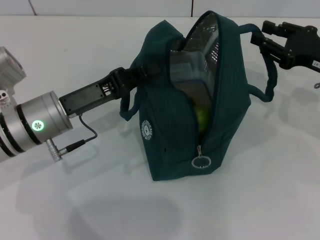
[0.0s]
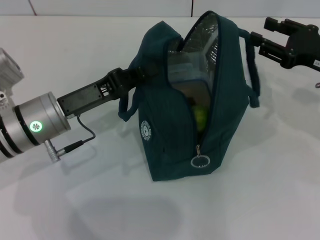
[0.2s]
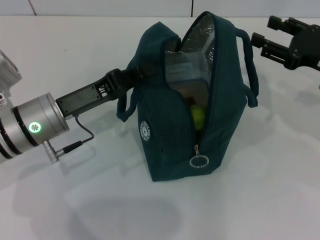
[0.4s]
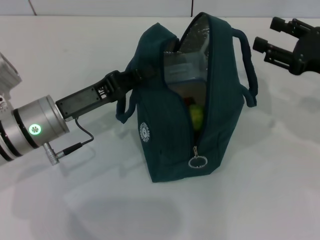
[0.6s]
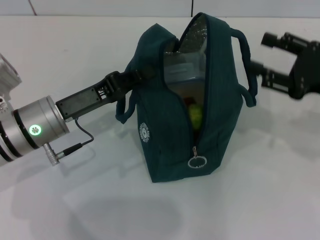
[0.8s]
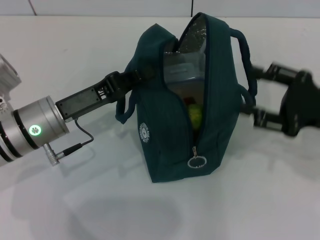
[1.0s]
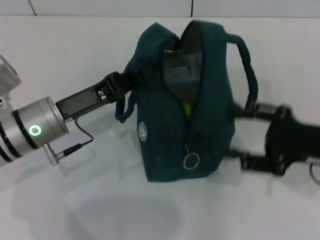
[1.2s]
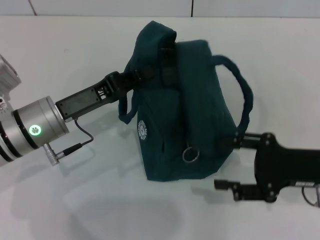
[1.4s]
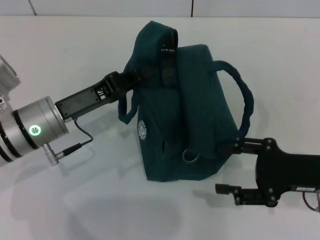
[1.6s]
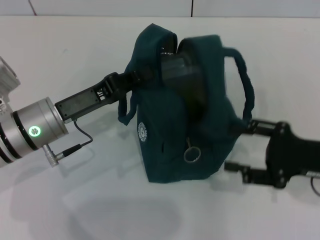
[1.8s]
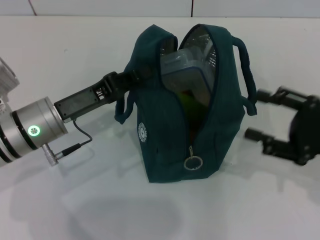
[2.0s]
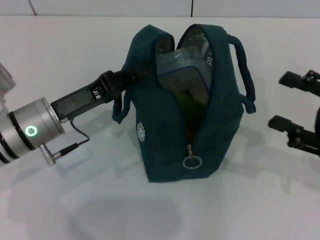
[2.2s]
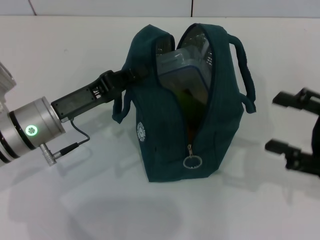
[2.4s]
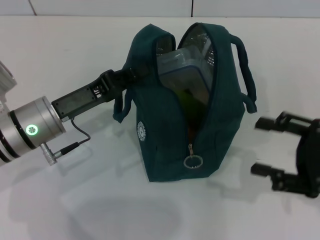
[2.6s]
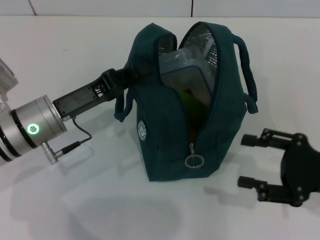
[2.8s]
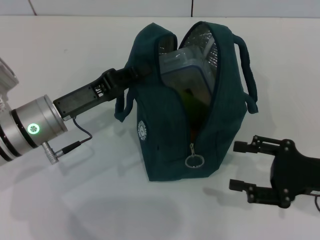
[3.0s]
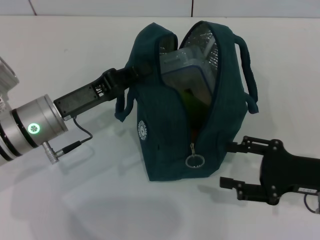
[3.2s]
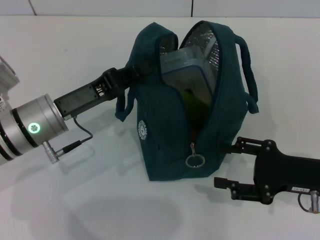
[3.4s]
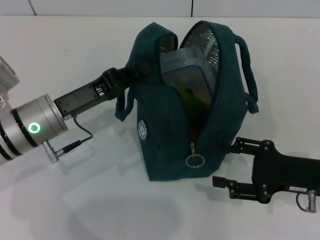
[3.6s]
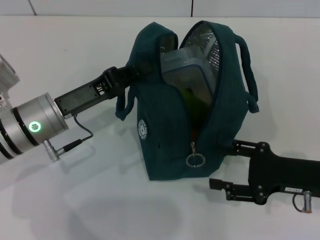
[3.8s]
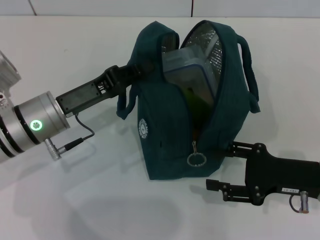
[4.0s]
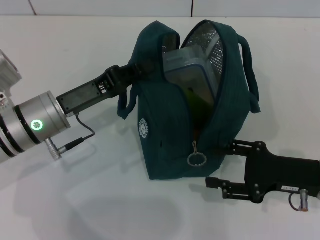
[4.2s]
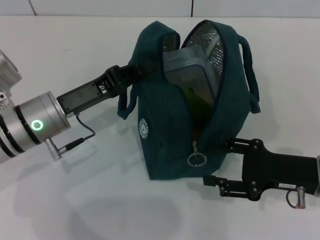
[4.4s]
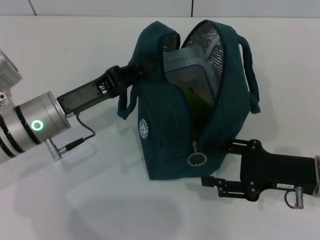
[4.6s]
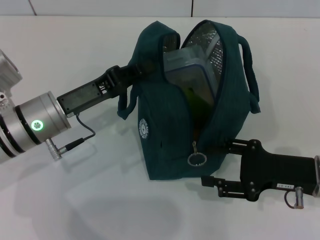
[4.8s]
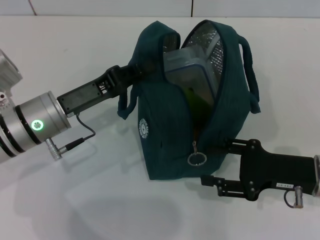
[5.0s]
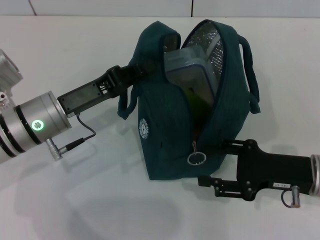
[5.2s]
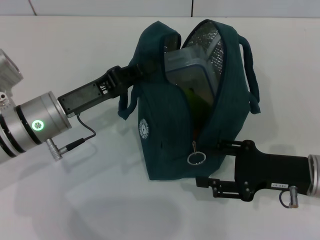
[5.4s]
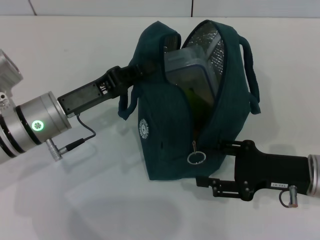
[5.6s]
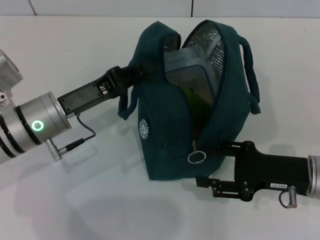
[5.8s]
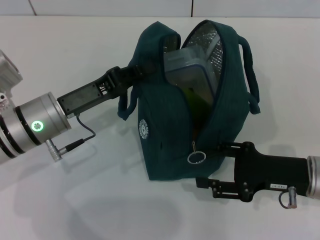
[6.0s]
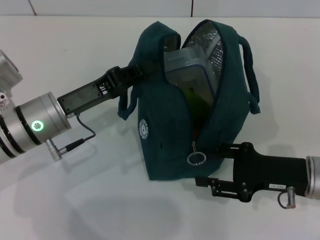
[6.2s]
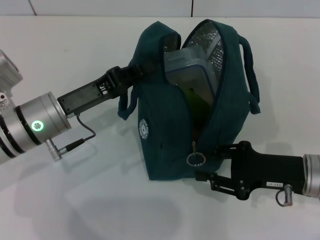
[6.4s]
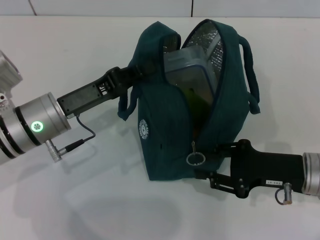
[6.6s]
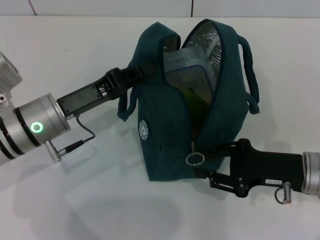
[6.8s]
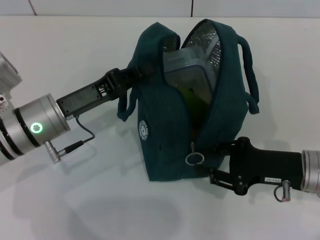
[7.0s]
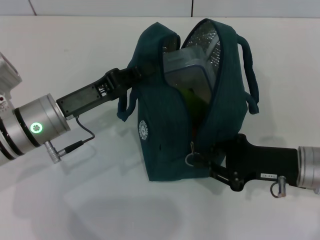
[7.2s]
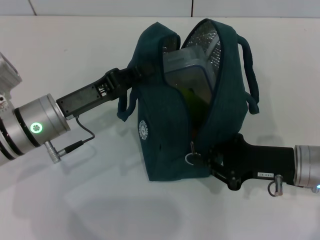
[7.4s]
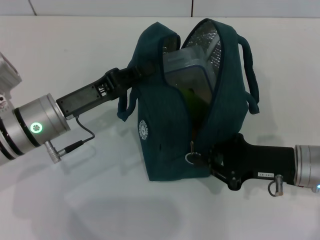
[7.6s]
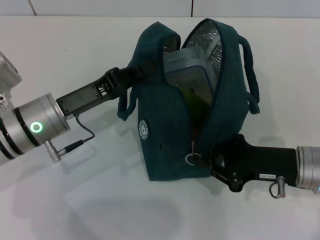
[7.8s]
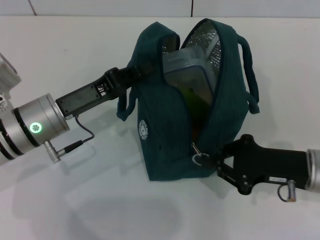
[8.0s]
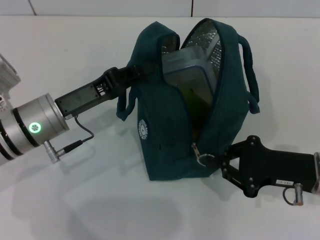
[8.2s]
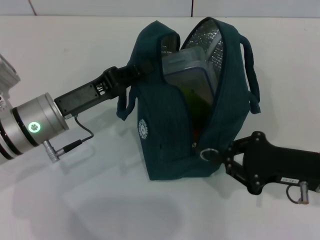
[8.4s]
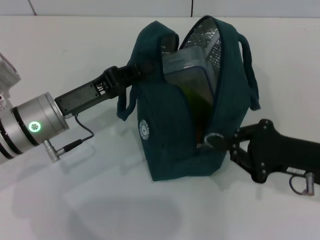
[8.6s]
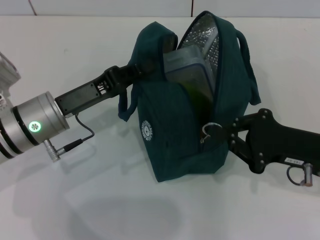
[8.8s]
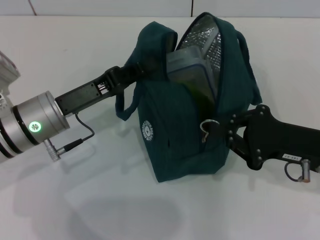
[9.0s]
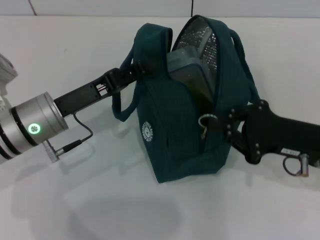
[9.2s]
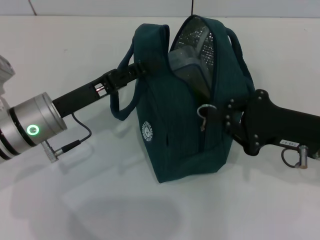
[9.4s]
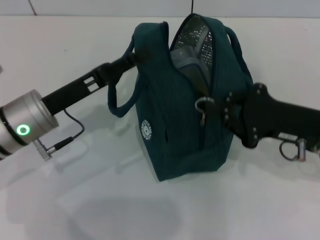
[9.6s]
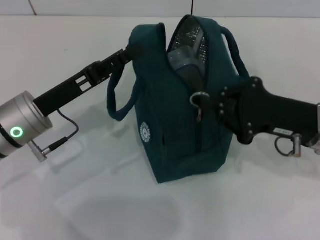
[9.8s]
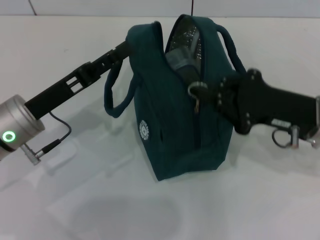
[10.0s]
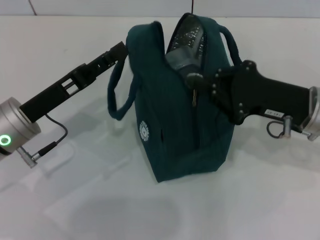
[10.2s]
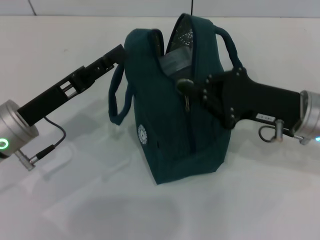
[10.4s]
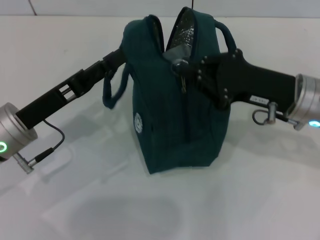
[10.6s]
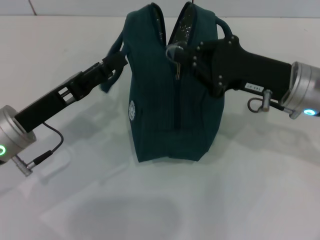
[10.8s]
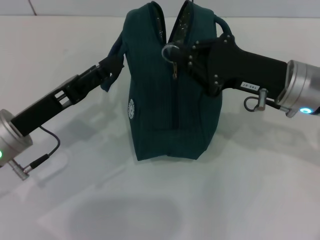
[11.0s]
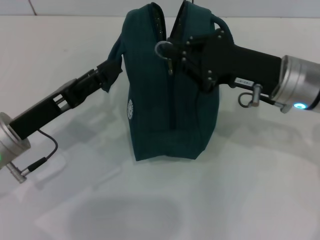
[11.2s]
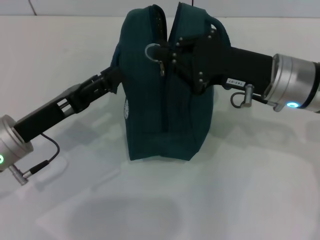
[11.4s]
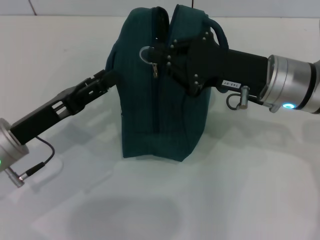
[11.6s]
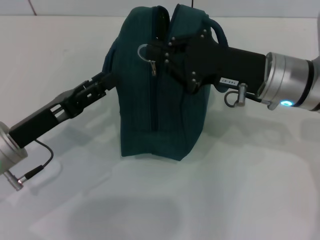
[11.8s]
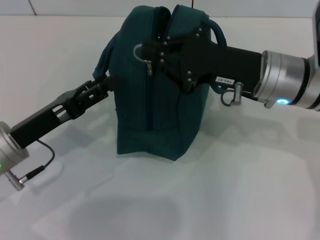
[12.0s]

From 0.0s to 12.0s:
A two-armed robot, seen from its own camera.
Step, from 0.2s to 10.2s: Hold the lunch bag with your left hand.
From 0.0s to 1.6s: The right gripper travels backward by some 10 cm, and opens.
From 3.0s to 4.4s: There are only small adjustments of the grippers.
From 4.4s to 6.0s: Both grippers stay about where they are.
From 6.0s to 7.6s: The right gripper closes up.
From 7.6s to 9.0s: There are only small adjustments of the grippers.
From 9.0s to 10.4s: The right gripper moves about 5 cm, while the left gripper opens.
From 10.4s to 12.0s: The right gripper is displaced to the left by approximately 5 cm.

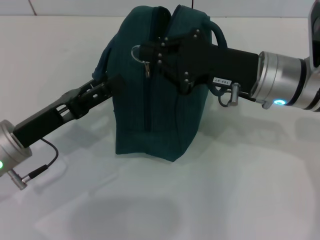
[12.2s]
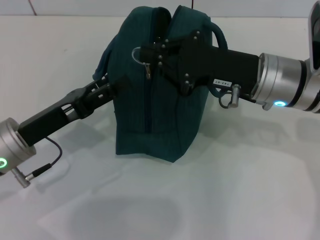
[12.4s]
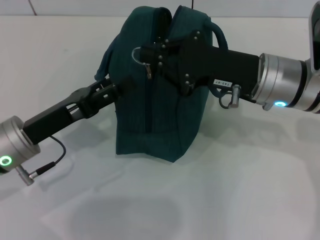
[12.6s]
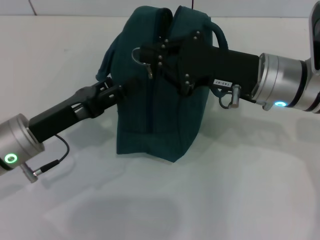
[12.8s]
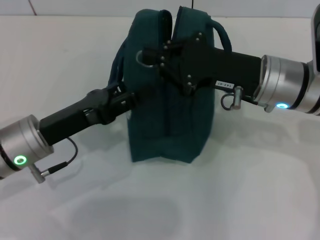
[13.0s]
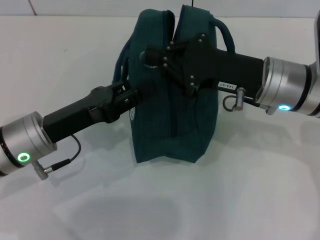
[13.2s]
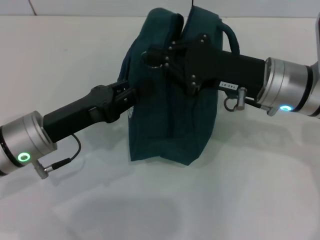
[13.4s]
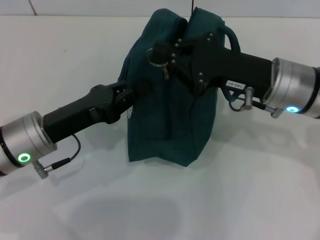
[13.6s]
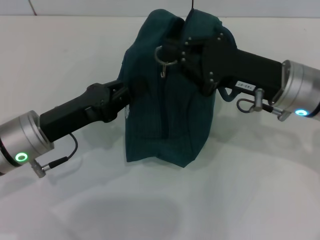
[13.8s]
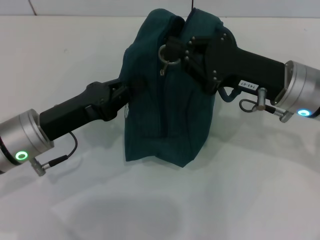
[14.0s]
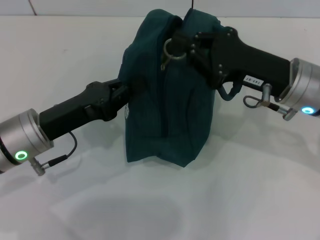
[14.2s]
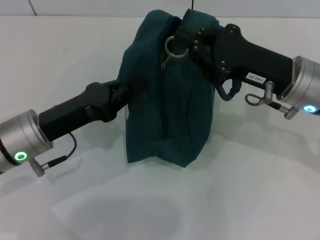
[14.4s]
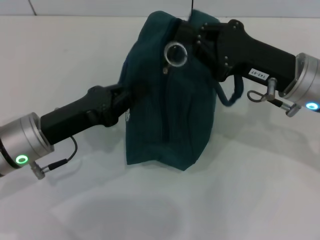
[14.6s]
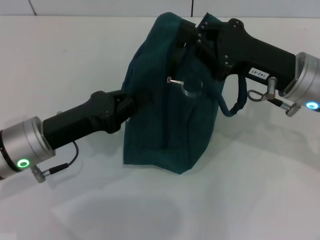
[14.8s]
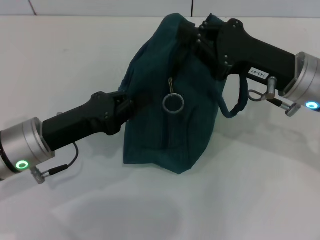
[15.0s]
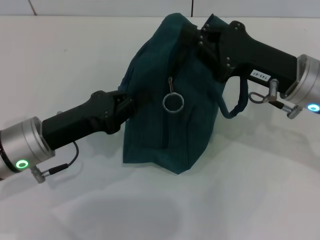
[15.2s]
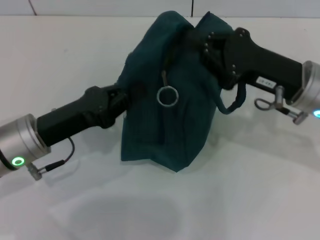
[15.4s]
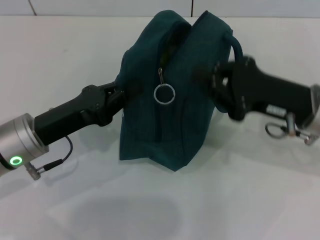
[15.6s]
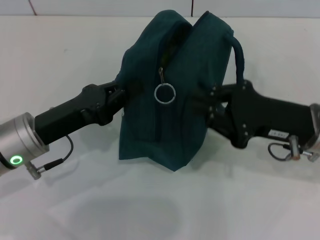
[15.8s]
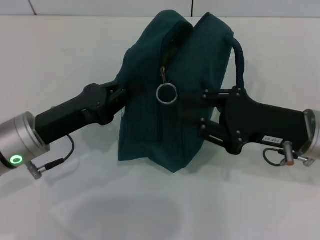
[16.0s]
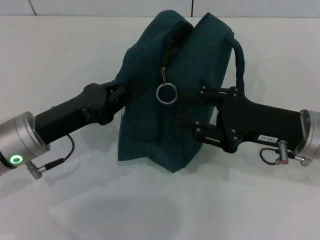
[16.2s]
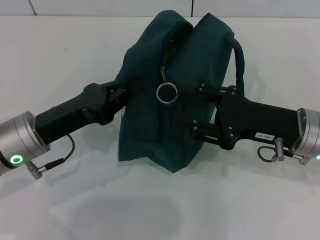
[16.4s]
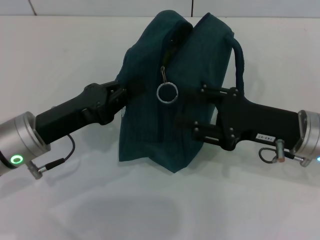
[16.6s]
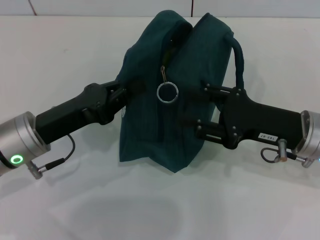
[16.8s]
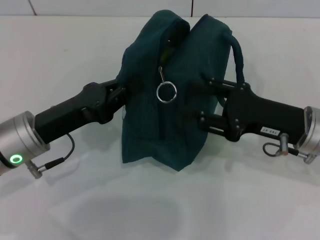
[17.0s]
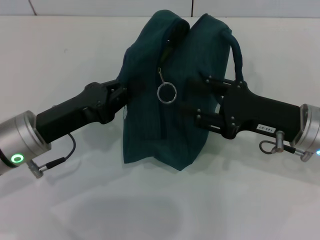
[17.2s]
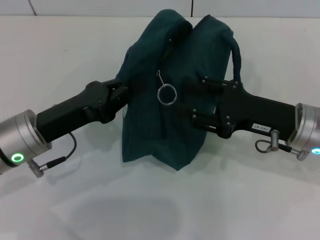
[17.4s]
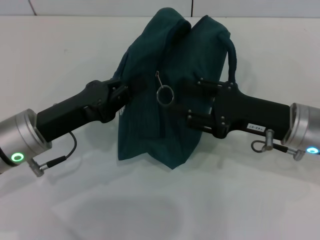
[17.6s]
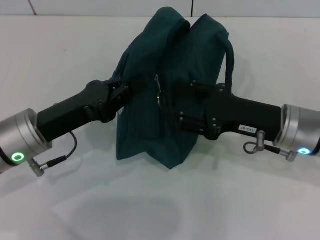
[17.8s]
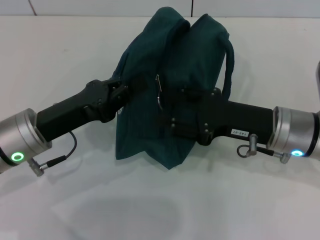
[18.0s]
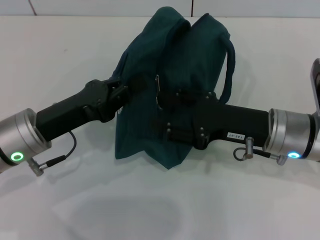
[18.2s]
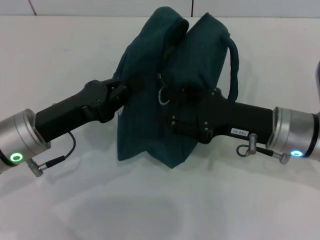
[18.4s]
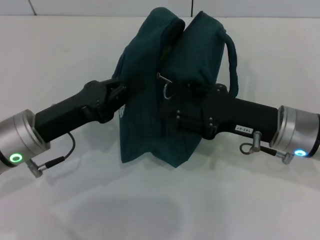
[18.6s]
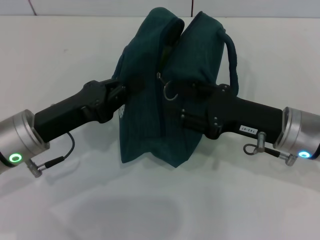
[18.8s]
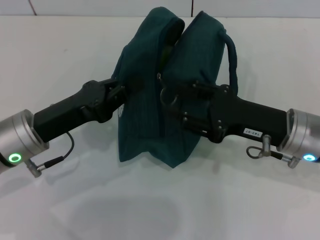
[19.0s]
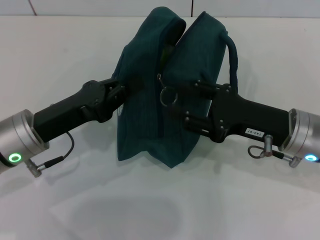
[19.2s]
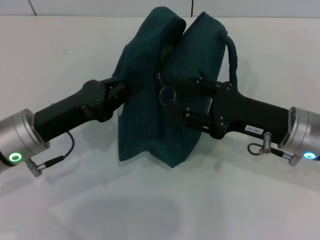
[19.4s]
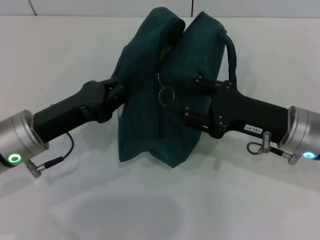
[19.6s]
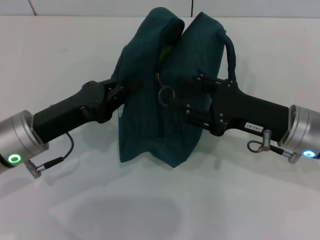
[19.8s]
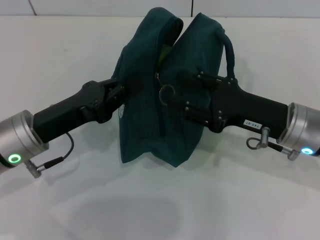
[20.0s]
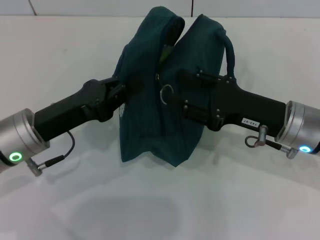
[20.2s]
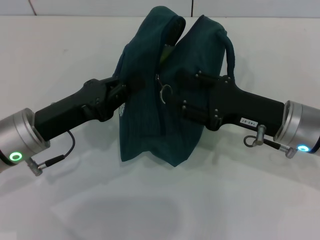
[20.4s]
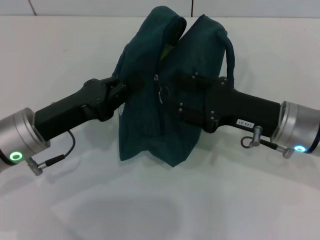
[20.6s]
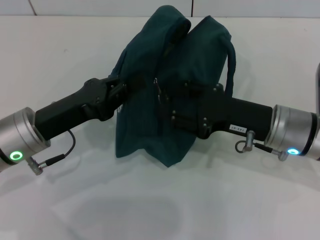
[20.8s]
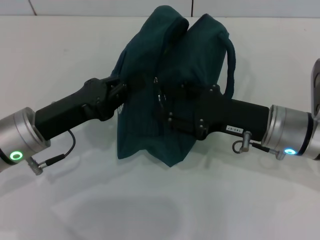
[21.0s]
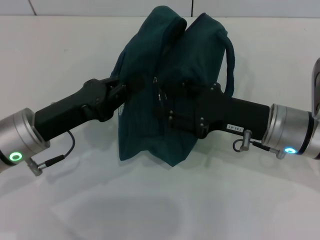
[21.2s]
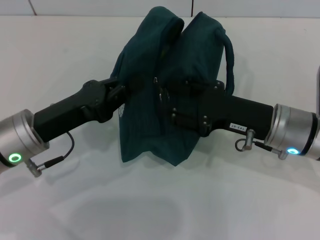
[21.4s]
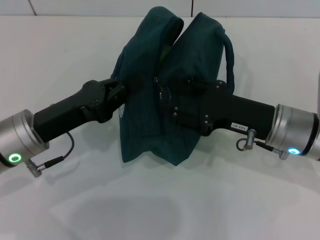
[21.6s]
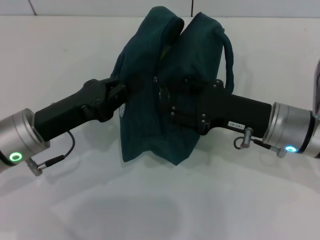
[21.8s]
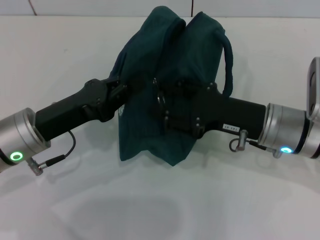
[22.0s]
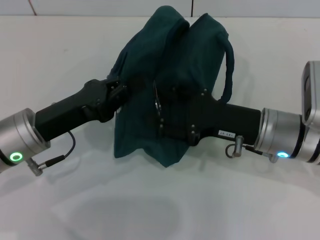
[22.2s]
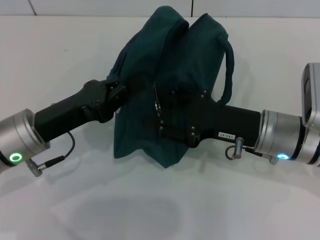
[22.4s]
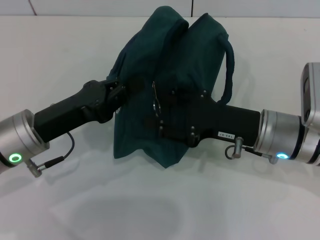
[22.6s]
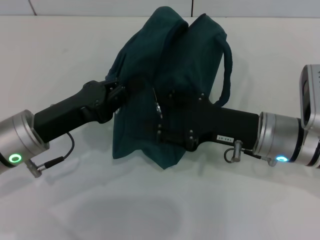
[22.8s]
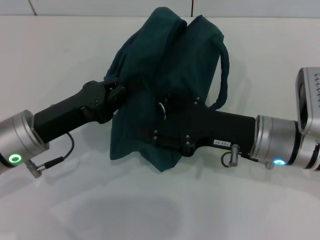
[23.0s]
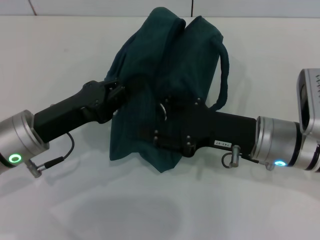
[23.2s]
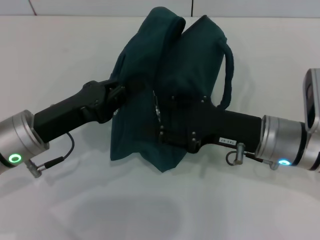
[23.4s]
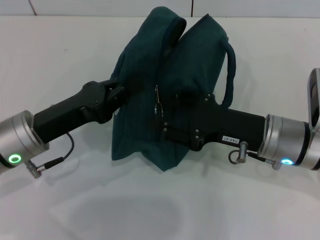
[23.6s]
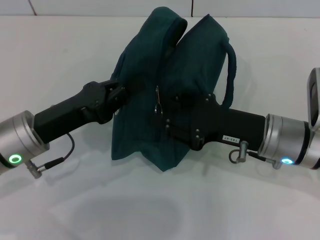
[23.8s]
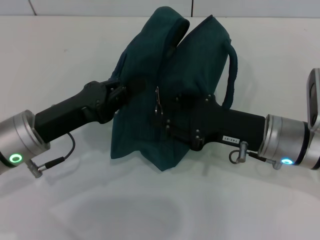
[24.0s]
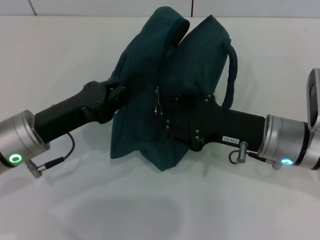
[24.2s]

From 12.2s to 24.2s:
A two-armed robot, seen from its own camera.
From 12.2s to 13.8s: The left gripper closes its fingers.
From 13.8s to 15.2s: The grippers make only small movements.
From 15.2s to 16.6s: The right gripper ends up roughly 5 cm from where it was, and opens up.
From 16.6s to 21.2s: There are only small adjustments of the grippers.
From 21.2s to 22.6s: Both grippers stay put.
From 22.6s to 24.2s: Both grippers stay put.
